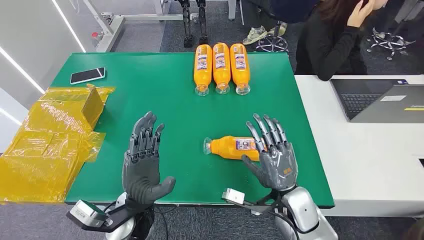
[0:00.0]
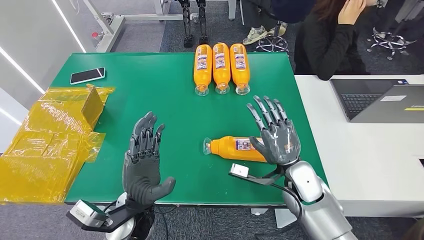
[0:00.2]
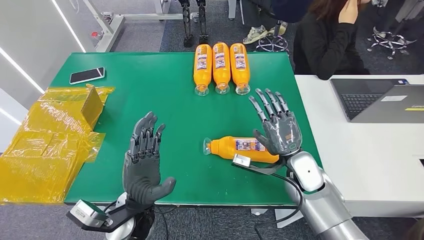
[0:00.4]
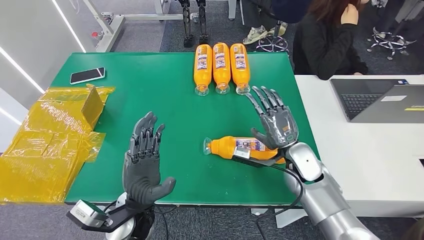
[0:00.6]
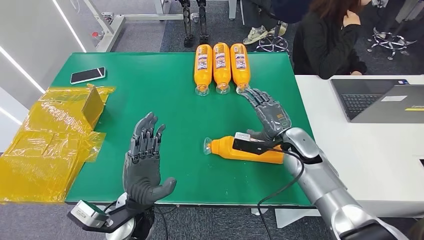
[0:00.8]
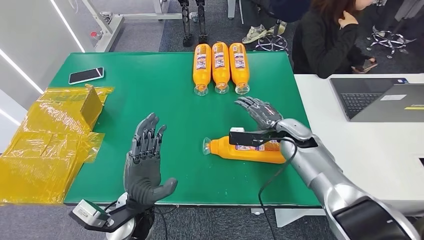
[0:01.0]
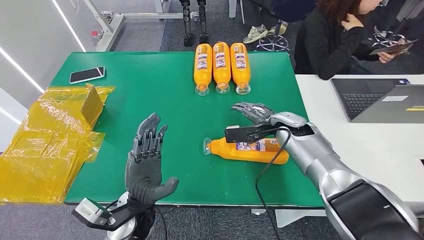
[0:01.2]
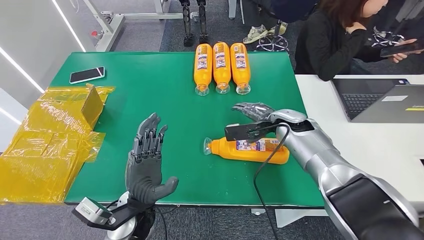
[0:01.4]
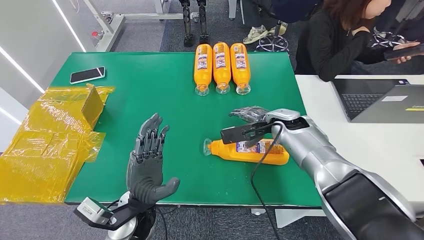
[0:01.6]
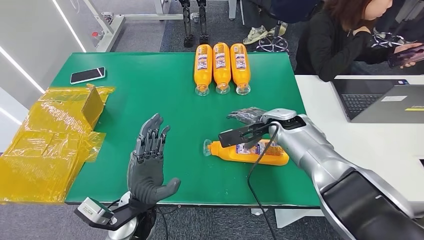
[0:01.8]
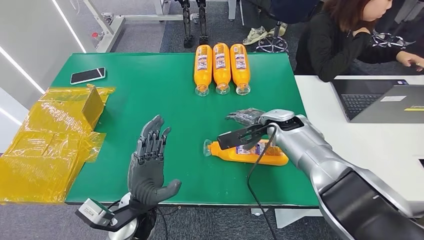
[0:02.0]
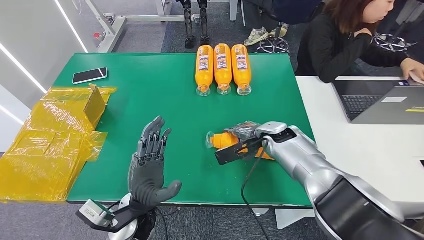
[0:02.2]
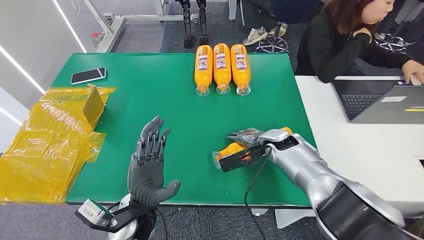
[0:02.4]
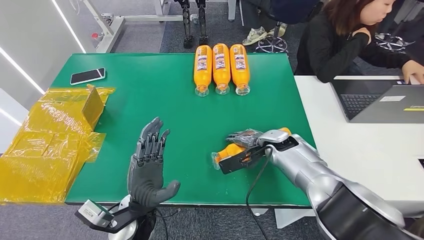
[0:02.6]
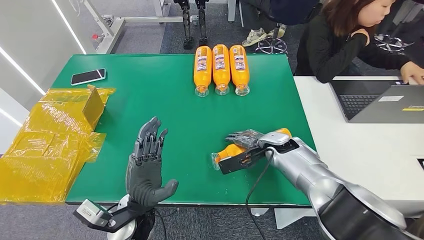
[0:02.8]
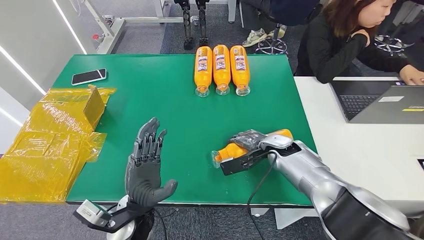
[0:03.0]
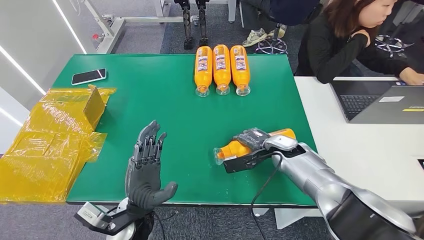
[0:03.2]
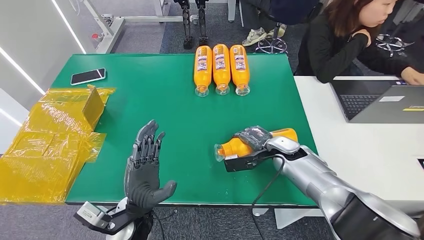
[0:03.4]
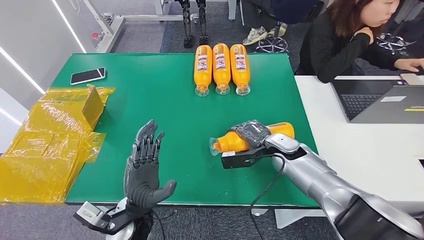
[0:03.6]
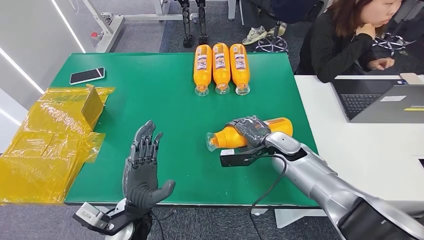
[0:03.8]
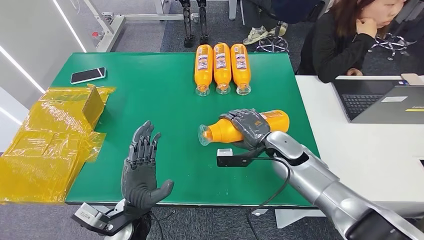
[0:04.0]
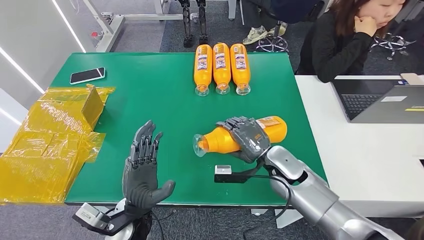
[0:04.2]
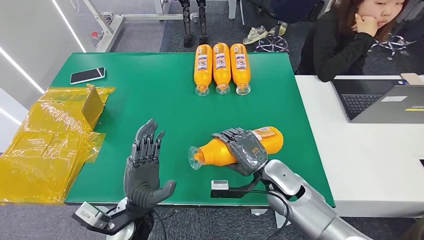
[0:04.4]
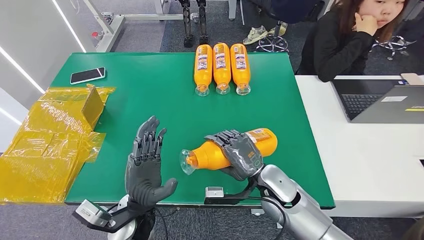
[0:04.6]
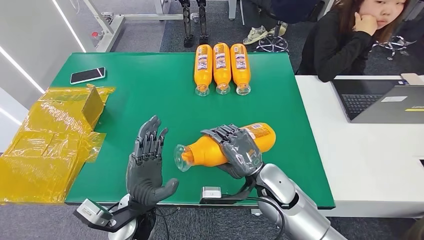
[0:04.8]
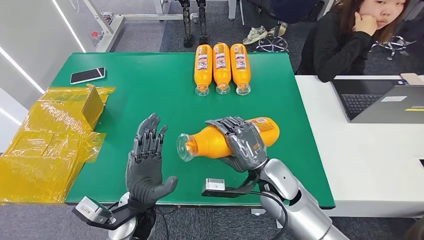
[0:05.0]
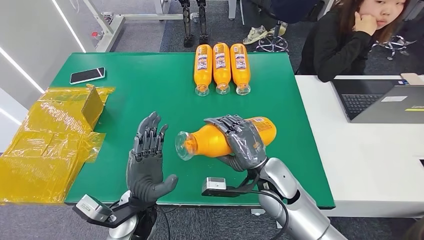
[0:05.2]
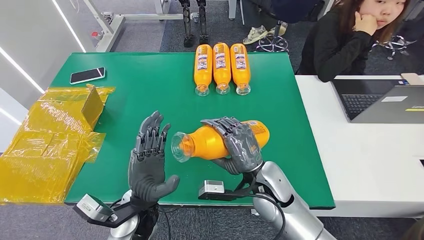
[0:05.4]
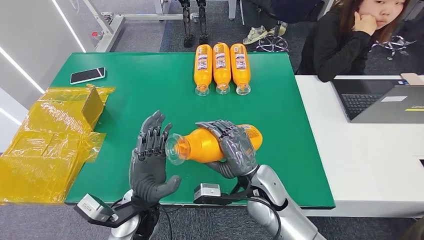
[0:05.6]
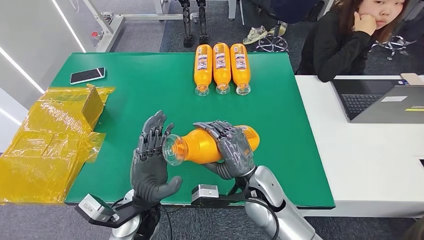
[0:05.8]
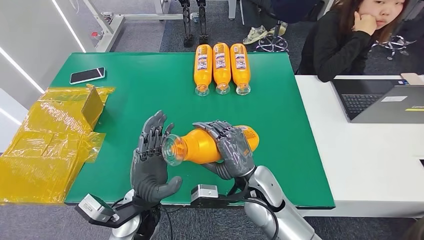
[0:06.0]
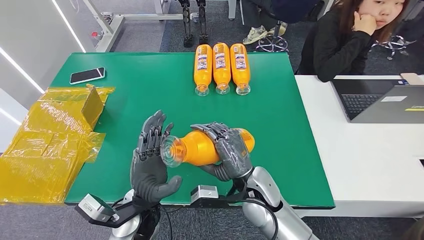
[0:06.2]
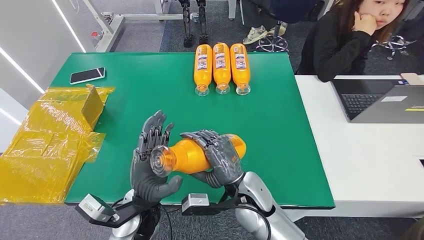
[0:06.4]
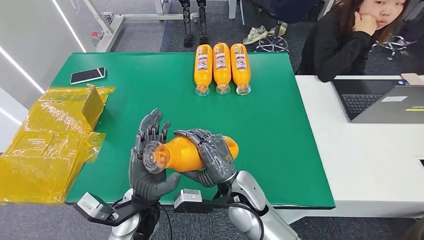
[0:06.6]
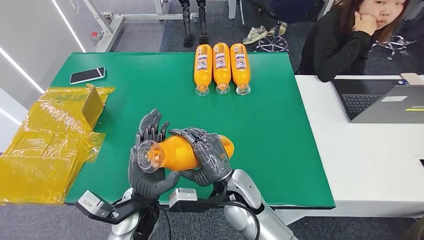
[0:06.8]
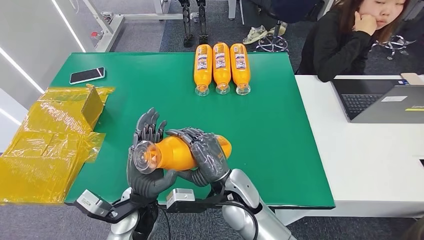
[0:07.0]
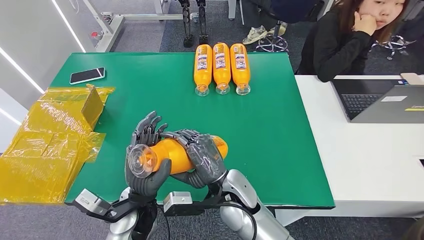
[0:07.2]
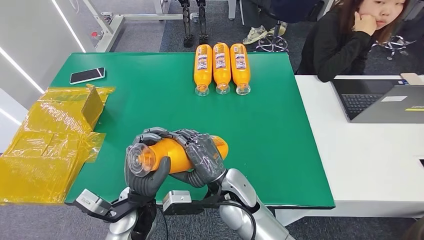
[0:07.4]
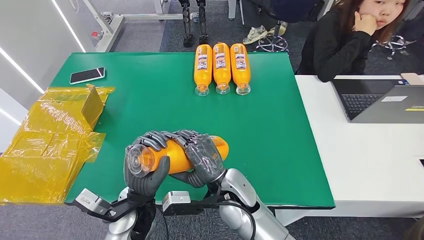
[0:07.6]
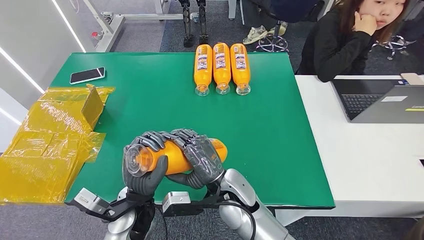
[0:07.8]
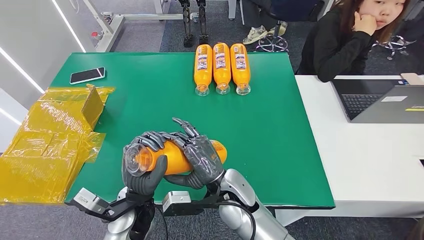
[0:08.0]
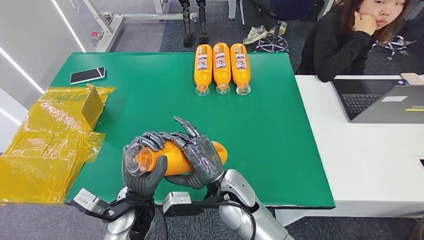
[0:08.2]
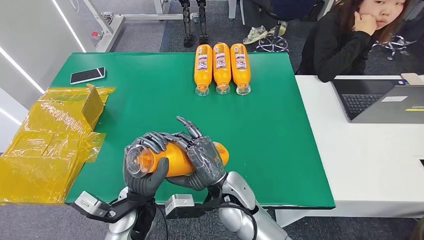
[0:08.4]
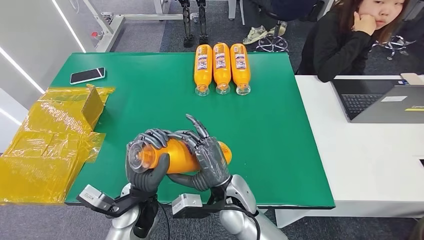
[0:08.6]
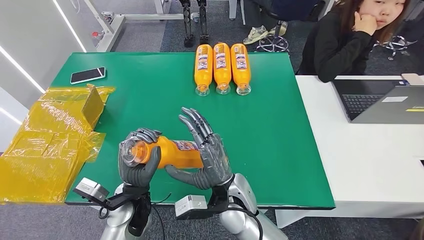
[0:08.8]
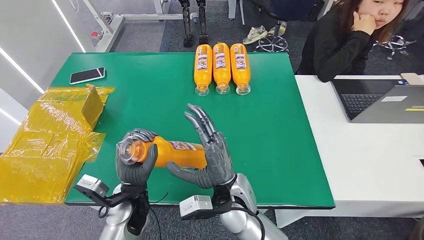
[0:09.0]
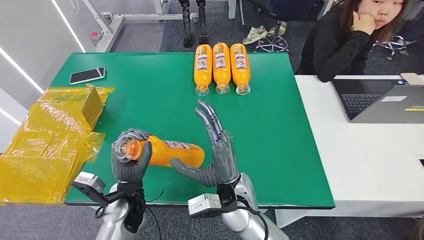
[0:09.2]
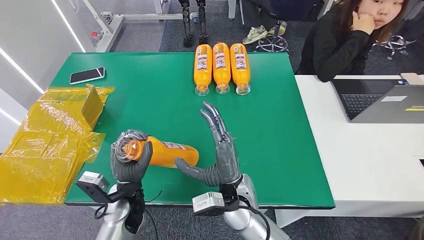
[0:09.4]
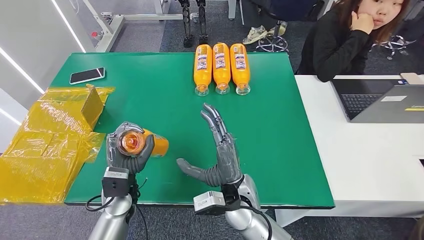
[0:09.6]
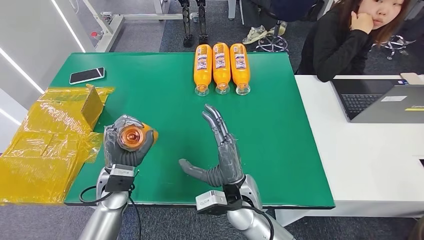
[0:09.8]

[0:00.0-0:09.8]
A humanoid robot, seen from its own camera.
Step, 0:00.0 to 0:05.2: Pick up the bottle from the table.
0:01.4 to 0:02.8: The right hand travels downward by about 5 cm.
0:02.8 to 0:04.2: The right hand moves backward, about 5 cm.
0:04.2 to 0:05.6: The right hand shifts approximately 10 cm to the left and backward.
0:05.6 to 0:07.0: The right hand goes some 5 cm to the left.
0:07.0 to 0:08.4: The hands stay close to where they were, moving slightly.
0:08.4 to 0:09.8: The left hand goes some 10 cm to the left and forward.

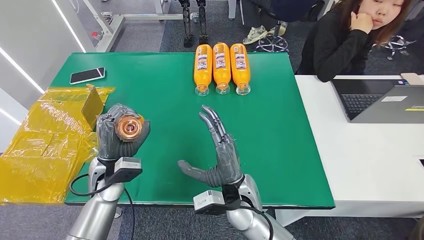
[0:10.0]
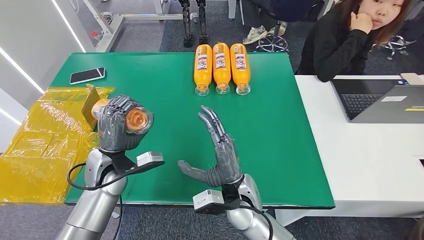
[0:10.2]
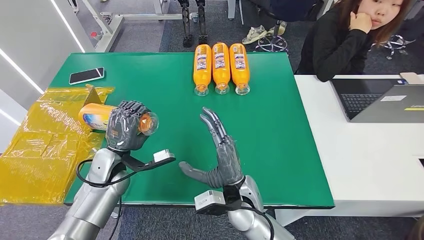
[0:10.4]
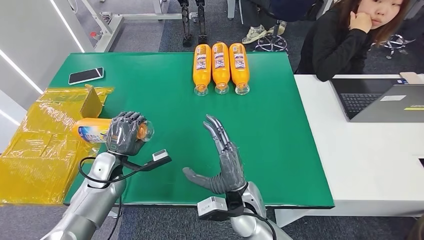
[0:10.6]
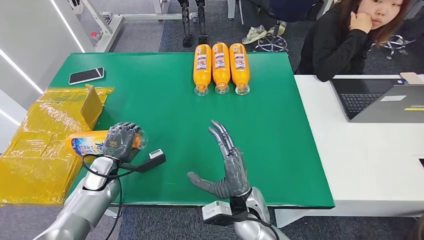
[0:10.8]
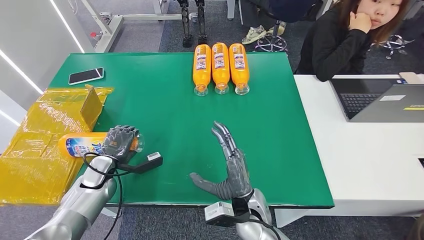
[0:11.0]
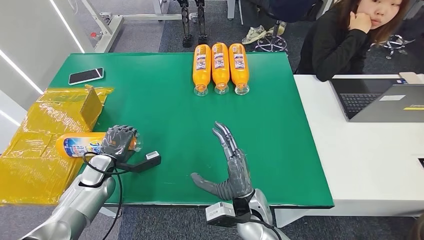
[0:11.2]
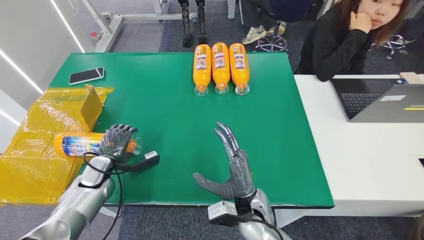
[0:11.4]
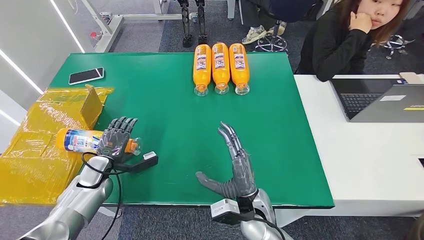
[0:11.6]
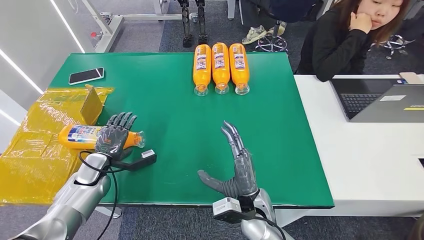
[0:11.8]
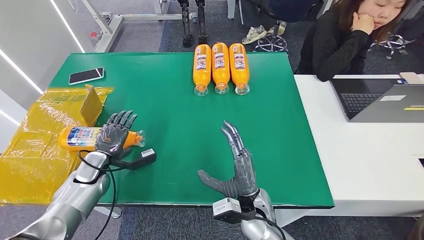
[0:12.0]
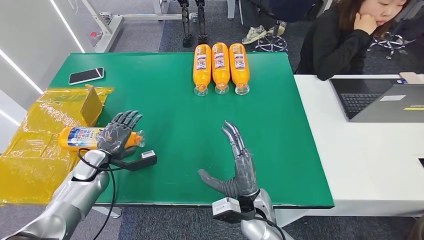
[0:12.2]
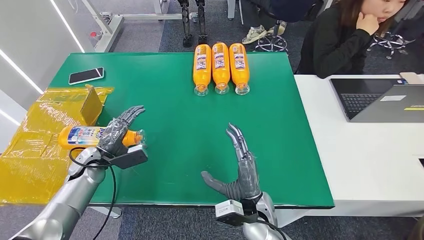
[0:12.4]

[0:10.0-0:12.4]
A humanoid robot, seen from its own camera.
Step, 0:10.0 to 0:12.4: Turn the bottle to the front side.
0:10.0 to 0:11.2: The left hand goes about 15 cm to the left and downward.
